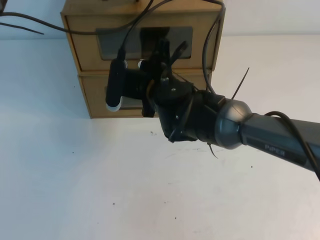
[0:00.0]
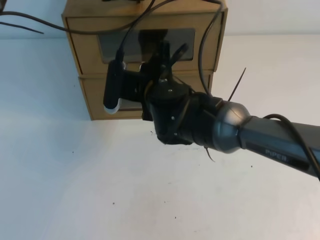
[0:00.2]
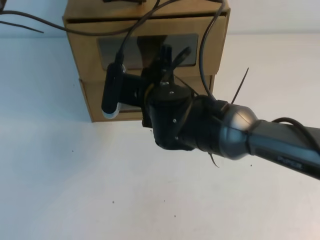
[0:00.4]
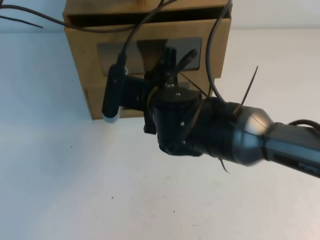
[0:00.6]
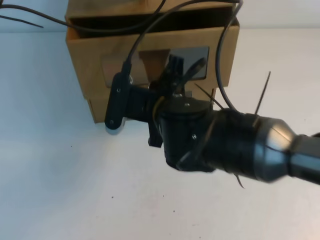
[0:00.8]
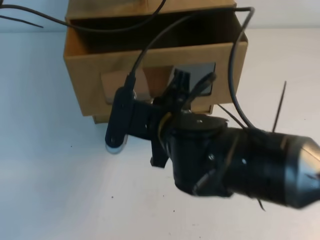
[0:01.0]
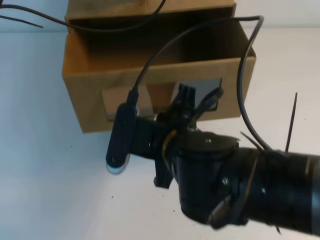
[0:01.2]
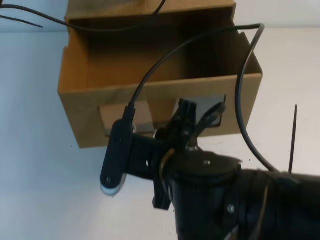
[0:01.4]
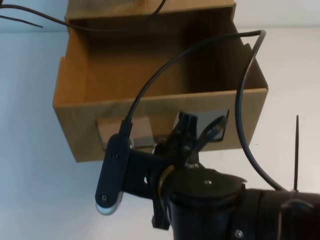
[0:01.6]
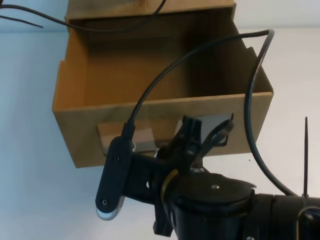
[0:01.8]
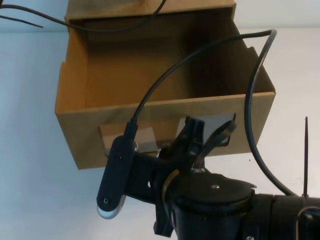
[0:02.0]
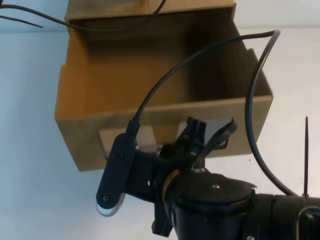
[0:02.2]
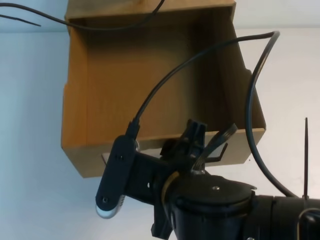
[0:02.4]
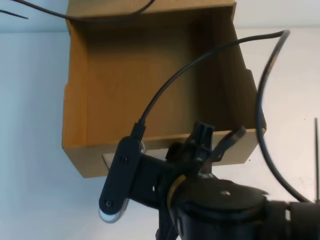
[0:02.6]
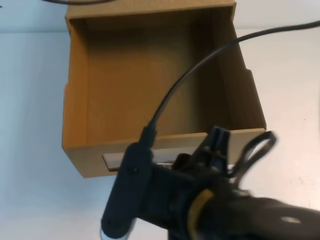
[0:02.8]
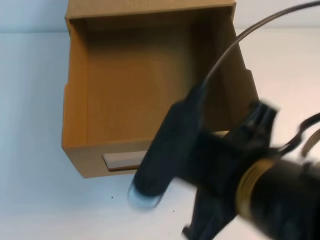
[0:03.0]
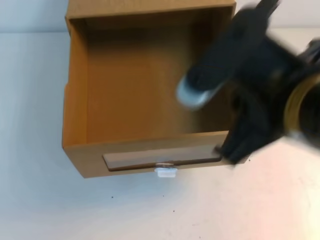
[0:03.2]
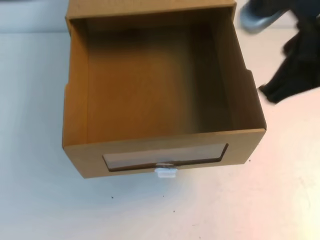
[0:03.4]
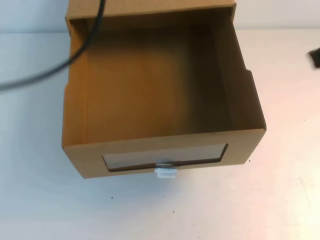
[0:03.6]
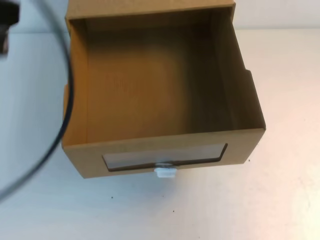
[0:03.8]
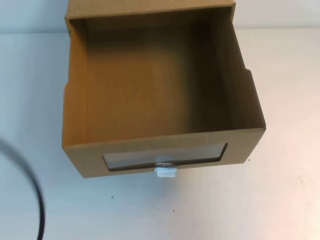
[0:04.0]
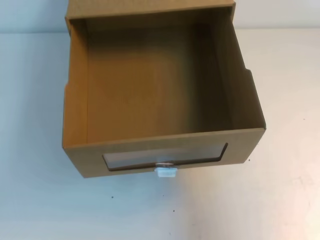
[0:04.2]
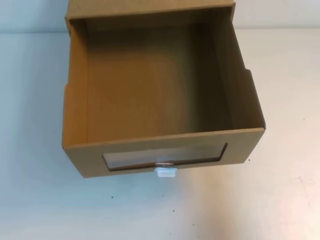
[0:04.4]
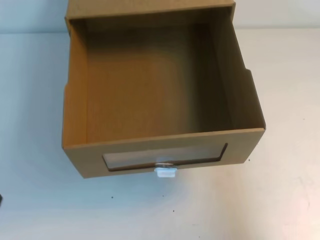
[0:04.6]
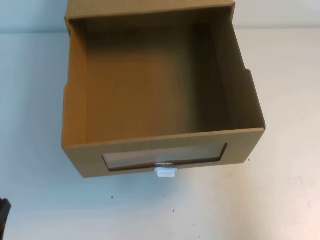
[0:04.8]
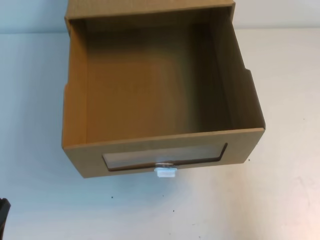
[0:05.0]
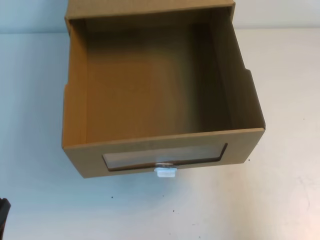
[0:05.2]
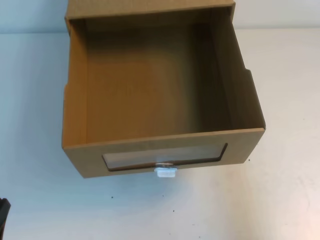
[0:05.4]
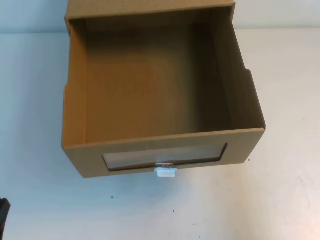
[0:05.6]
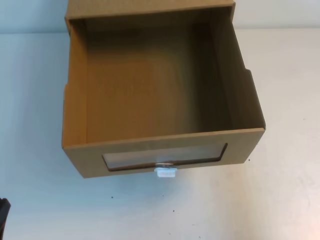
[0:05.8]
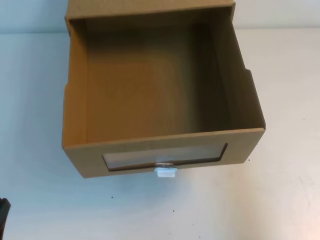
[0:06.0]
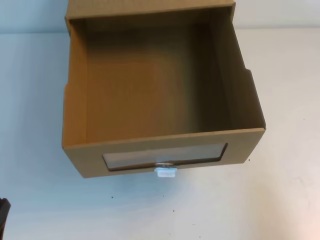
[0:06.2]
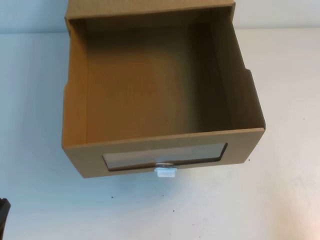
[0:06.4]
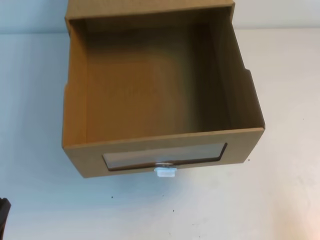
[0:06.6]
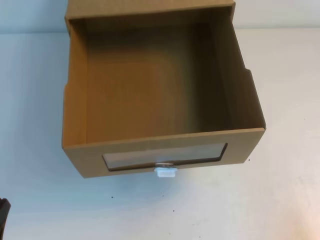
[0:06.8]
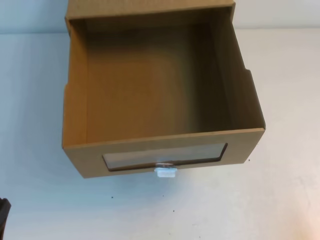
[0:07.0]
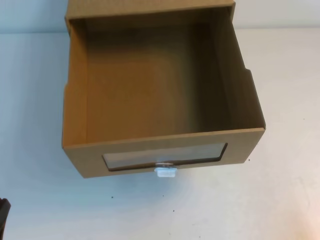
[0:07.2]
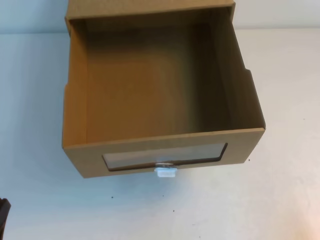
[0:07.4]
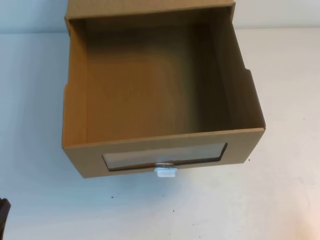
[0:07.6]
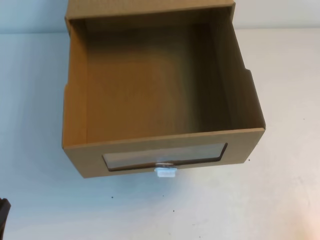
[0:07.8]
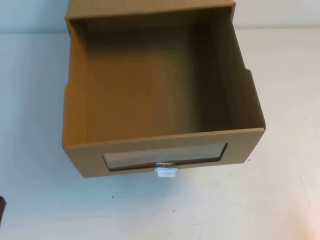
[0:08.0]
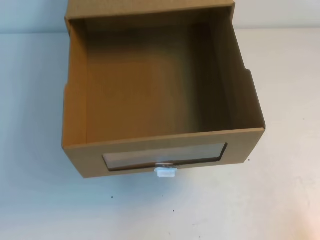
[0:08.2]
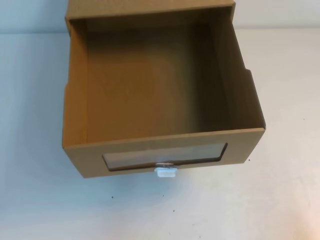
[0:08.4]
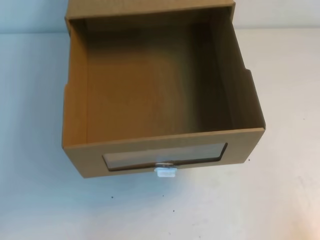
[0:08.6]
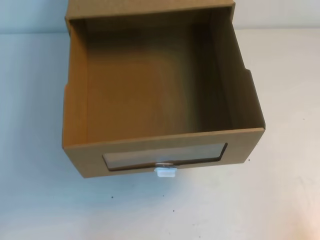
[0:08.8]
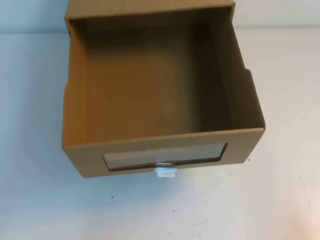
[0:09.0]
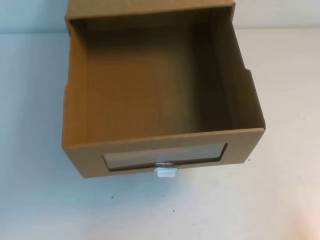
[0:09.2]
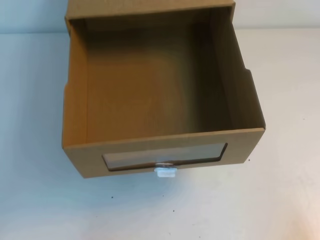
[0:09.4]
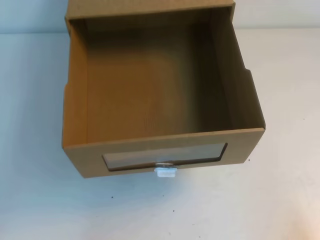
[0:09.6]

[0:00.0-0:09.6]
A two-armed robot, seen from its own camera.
Task of the whole recording: open the shoebox on the table.
0:00.0 to 0:01.6: The right gripper moves backward, about 20 cm.
0:01.6 to 0:03.2: The left gripper is displaced upward and backward by about 20 cm. Meanwhile the right gripper is displaced upward and to the right by some 15 cm, and opens, then closes once more.
0:03.2 to 0:04.8: The right gripper is displaced to the right and downward by approximately 20 cm; the left gripper heads downward and backward, covering roughly 40 cm.
0:04.8 to 0:06.4: The right gripper is displaced downward and backward by approximately 10 cm.

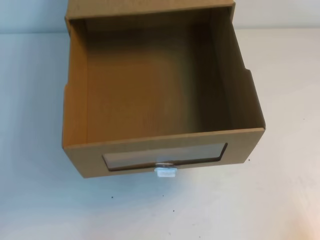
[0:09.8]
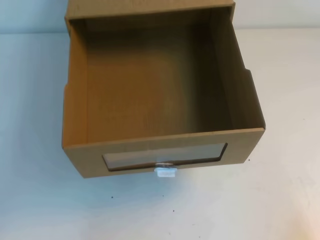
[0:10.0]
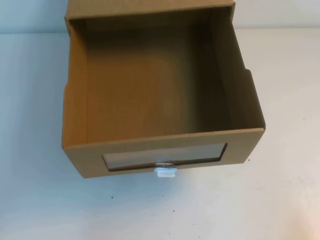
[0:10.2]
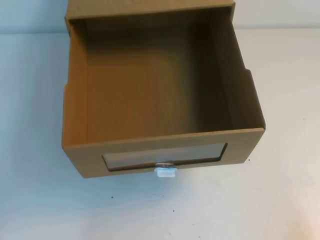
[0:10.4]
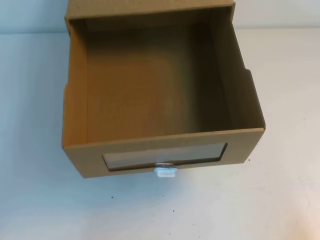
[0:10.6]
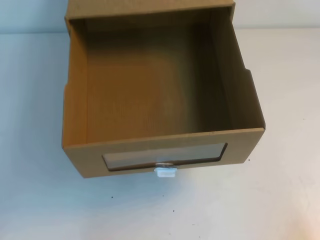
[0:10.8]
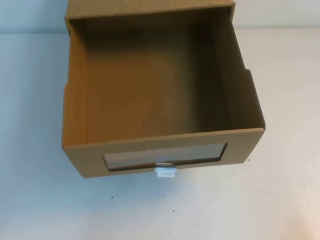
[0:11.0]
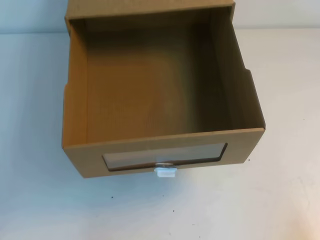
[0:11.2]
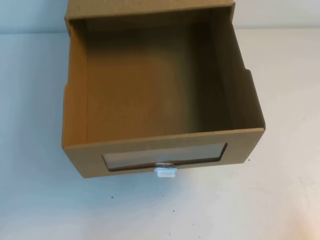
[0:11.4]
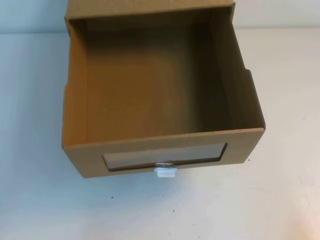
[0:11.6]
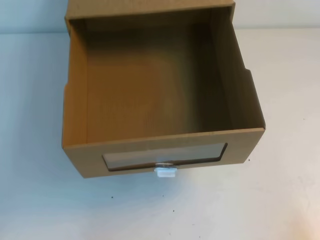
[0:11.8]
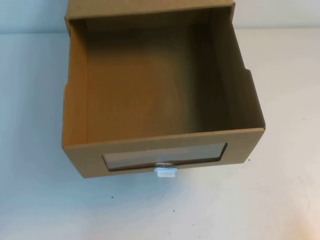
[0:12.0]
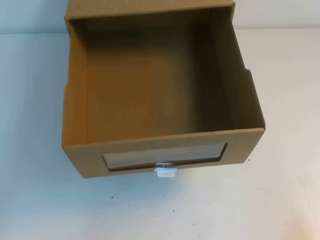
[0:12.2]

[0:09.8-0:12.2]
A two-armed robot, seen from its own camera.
Task of the whole recording: open the shoebox on the table.
0:09.8 to 0:12.2: The two grippers keep their place.

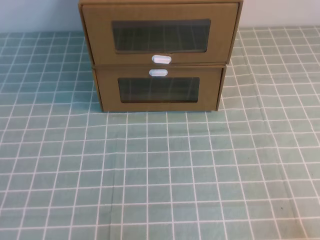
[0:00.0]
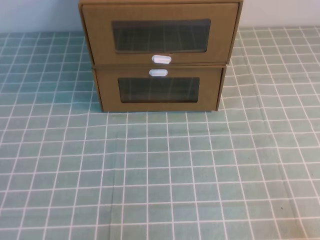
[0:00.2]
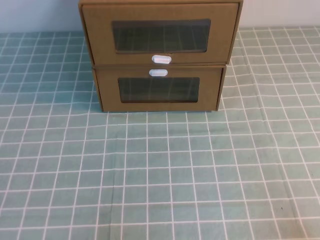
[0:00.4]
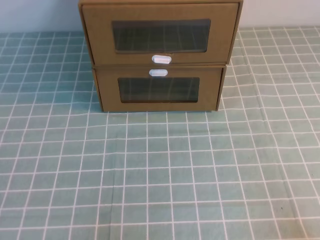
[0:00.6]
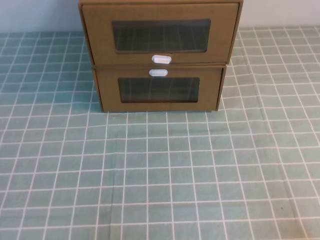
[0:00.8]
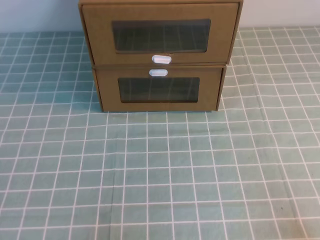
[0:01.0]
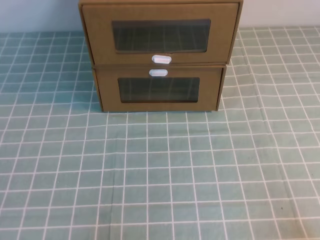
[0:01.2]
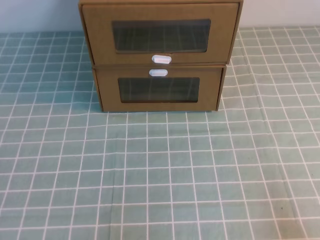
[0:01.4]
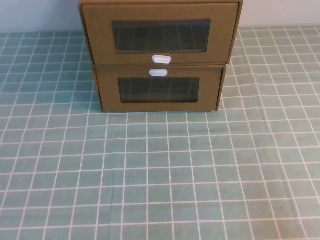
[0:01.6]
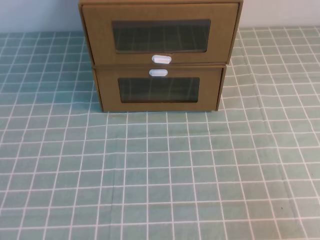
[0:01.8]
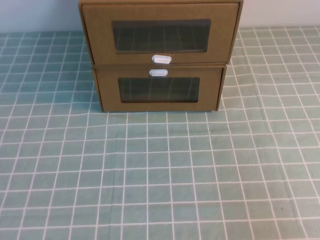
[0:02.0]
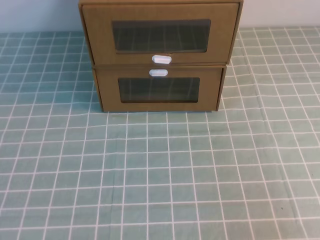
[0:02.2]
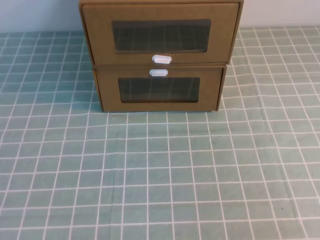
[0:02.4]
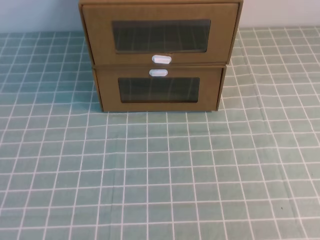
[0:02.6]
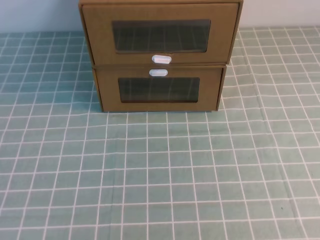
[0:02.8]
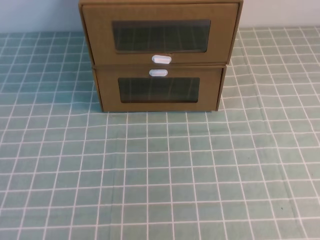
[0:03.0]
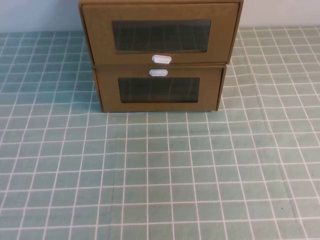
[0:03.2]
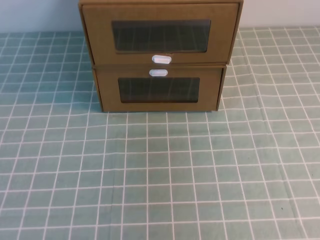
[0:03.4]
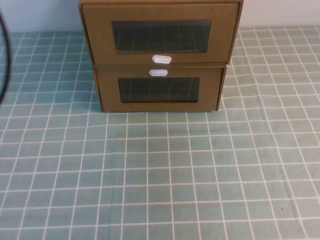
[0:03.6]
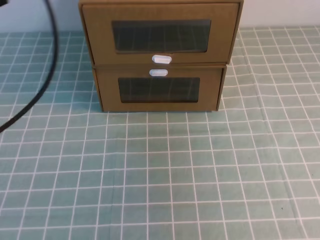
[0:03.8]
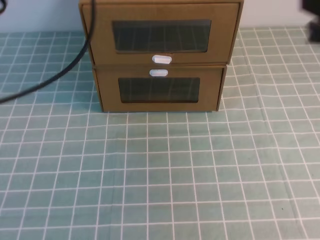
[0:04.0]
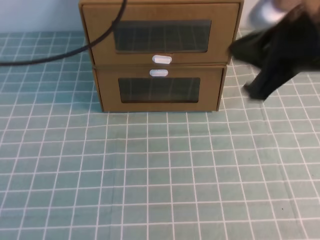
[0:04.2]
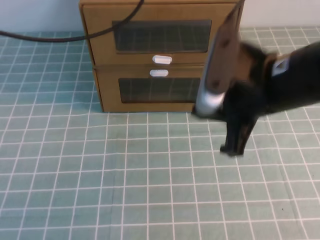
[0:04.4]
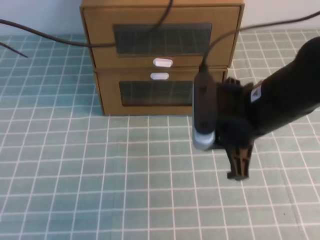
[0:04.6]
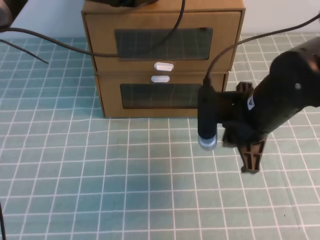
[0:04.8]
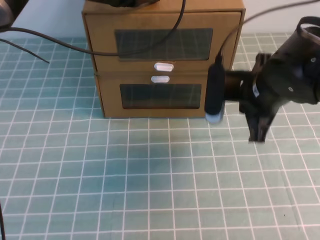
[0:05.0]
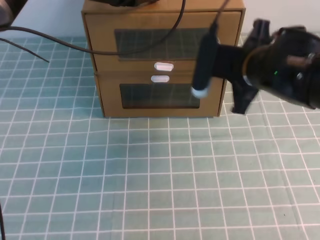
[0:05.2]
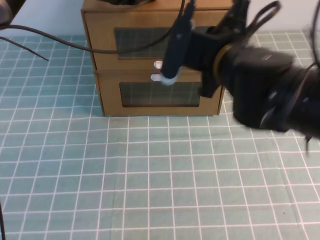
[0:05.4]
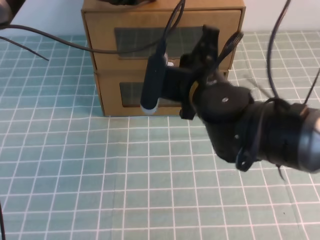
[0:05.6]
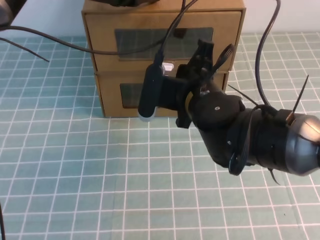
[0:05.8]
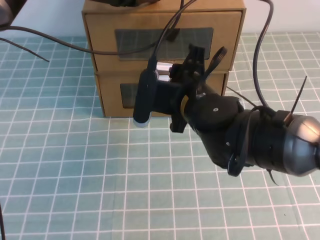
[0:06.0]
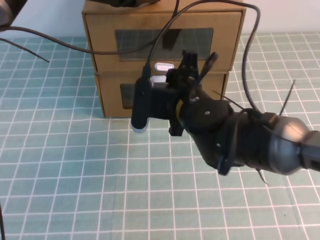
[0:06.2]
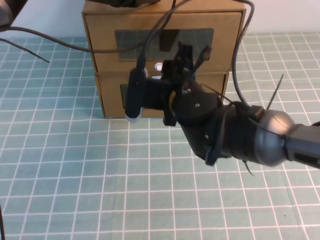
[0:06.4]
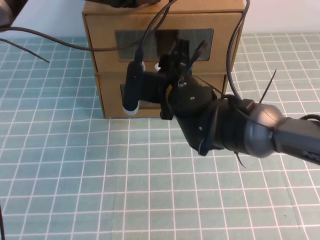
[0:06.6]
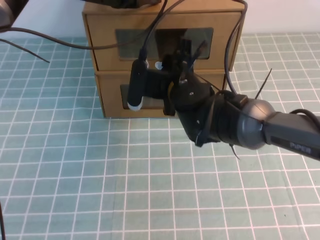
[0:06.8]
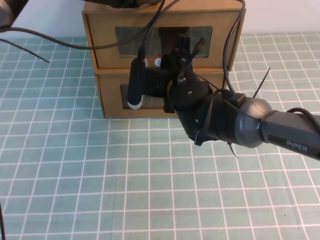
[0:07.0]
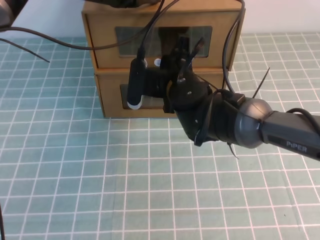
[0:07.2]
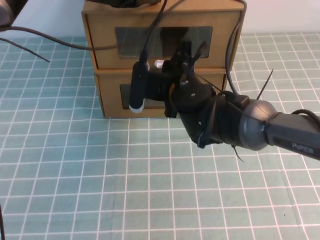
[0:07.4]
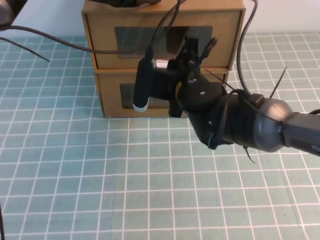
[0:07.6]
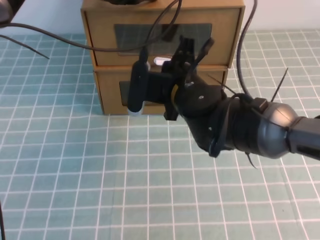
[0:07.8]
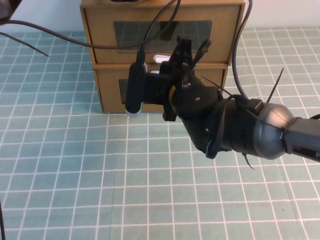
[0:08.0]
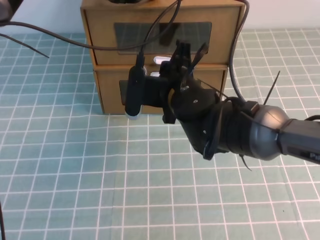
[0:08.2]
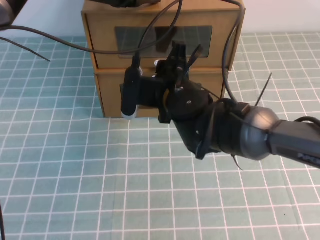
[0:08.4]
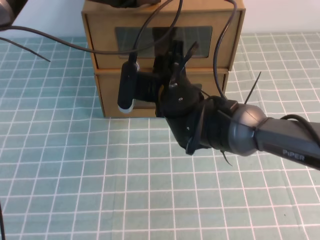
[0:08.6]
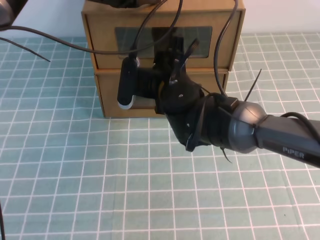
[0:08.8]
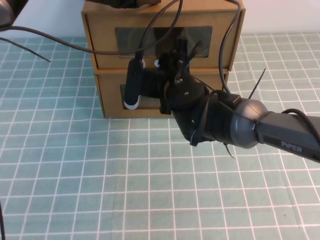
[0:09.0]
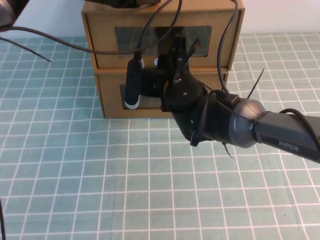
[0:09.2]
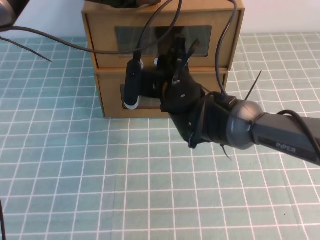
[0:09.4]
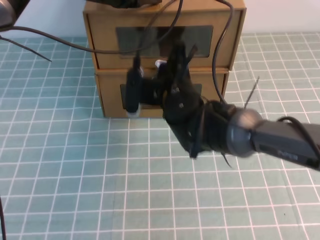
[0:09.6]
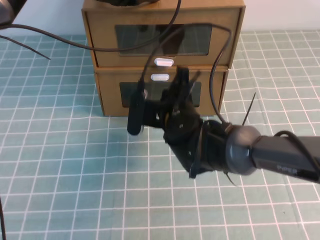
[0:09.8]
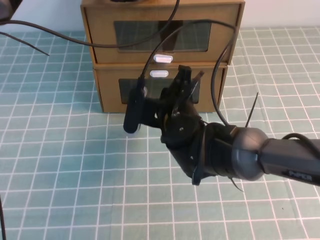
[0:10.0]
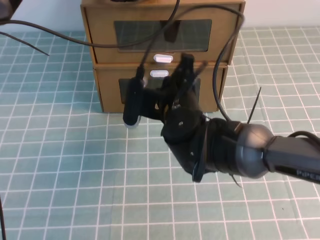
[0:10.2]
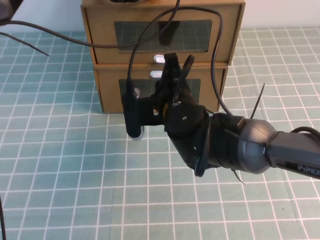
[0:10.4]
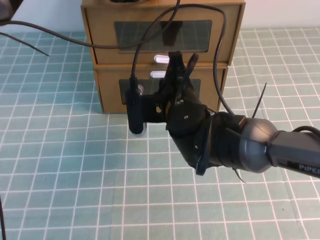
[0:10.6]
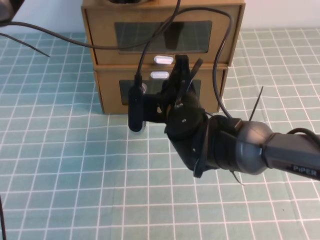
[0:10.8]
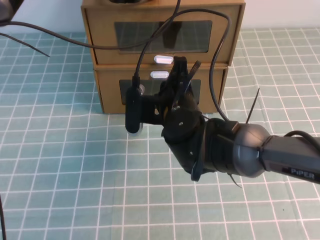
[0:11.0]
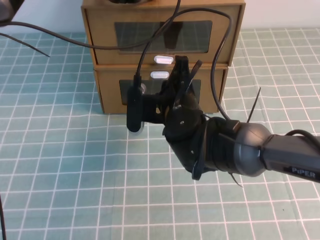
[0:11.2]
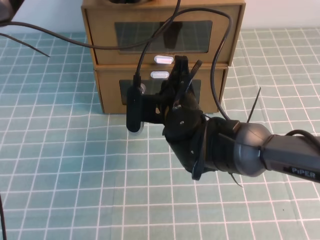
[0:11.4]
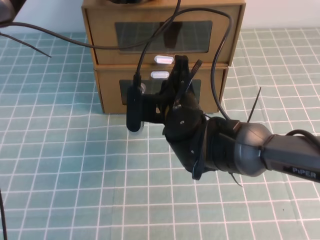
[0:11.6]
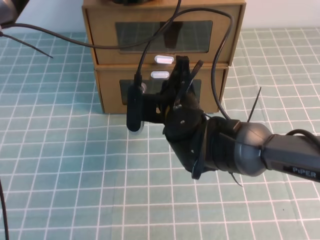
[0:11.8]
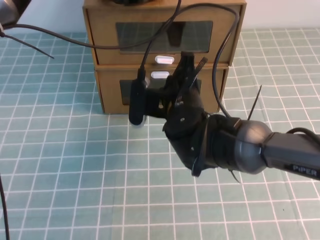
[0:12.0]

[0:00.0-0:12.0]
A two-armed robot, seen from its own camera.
Task of the whole recording: open the shoebox on the cyan tablecloth.
0:03.0 to 0:04.4: The left gripper is displaced forward by some 30 cm; the right gripper travels forward, to the left and downward by about 35 cm.
0:04.4 to 0:06.0: The right gripper shifts roughly 15 cm to the left, downward and forward, and opens. The left gripper moves forward, downward and to the right, about 10 cm.
0:06.0 to 0:07.6: The right gripper closes.
0:07.6 to 0:09.0: The right gripper opens.
0:09.0 to 0:10.4: The right gripper ends up approximately 5 cm from where it was, and closes its fingers.
0:10.4 to 0:12.0: There are only small adjustments of the grippers.
